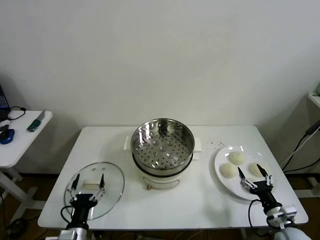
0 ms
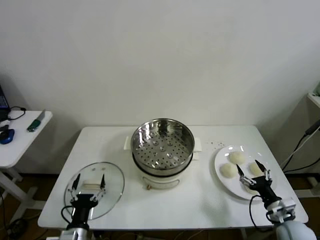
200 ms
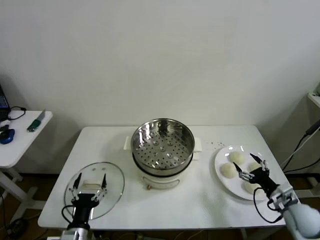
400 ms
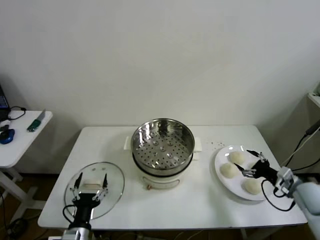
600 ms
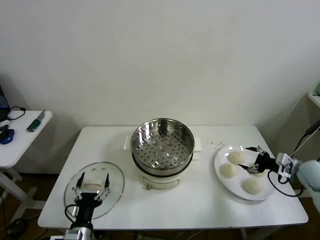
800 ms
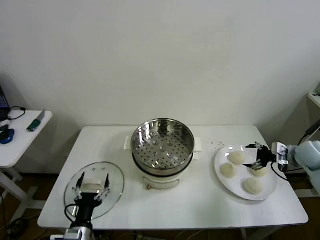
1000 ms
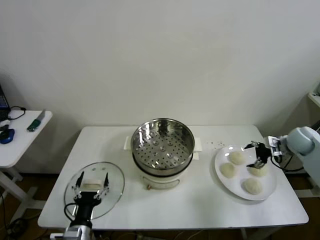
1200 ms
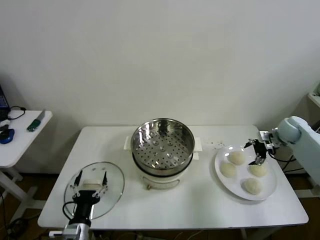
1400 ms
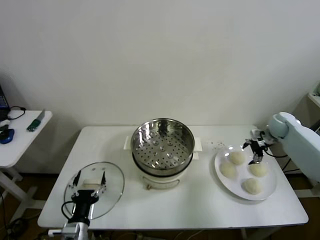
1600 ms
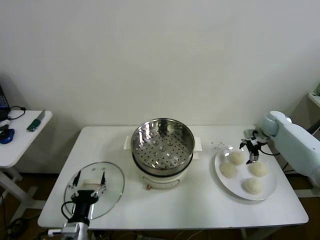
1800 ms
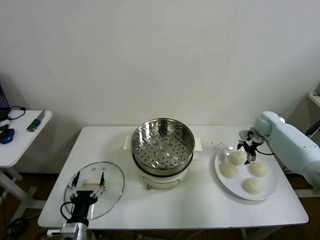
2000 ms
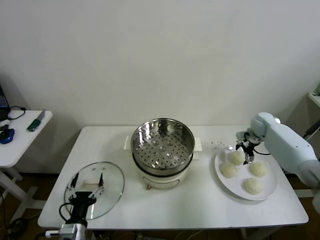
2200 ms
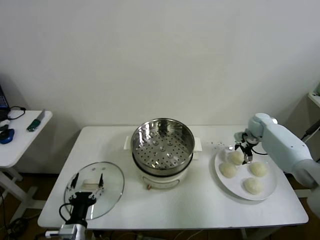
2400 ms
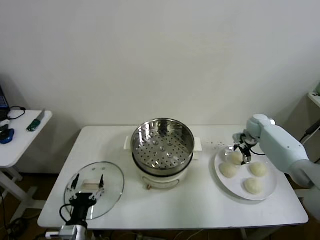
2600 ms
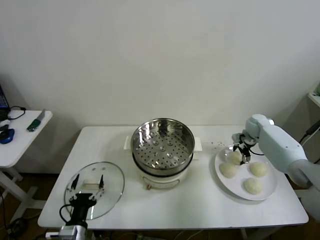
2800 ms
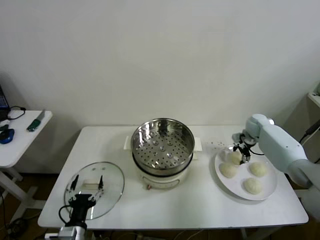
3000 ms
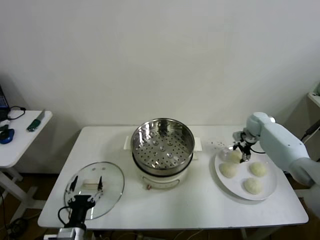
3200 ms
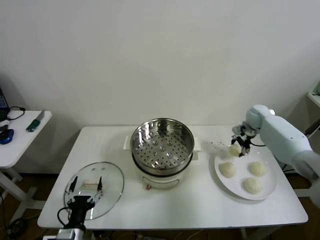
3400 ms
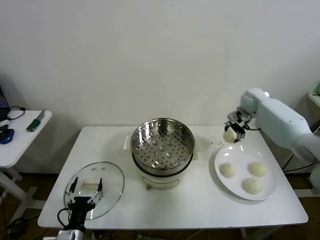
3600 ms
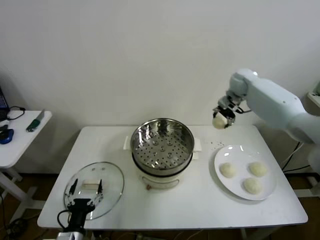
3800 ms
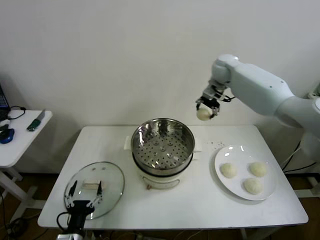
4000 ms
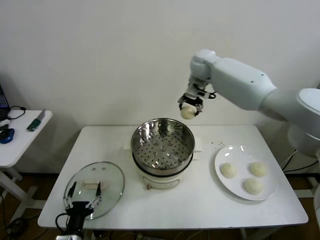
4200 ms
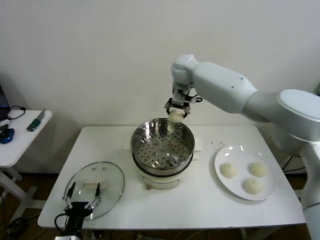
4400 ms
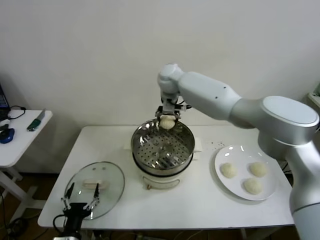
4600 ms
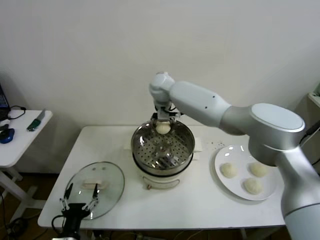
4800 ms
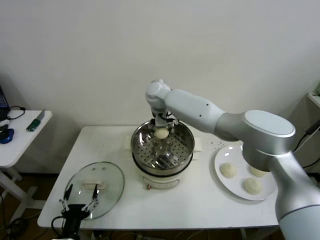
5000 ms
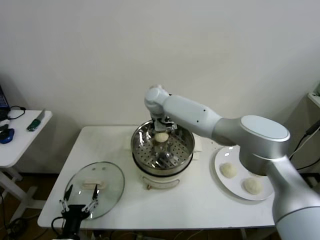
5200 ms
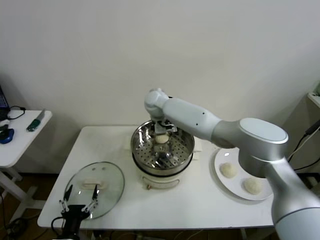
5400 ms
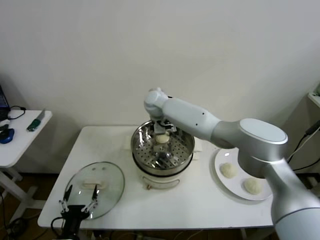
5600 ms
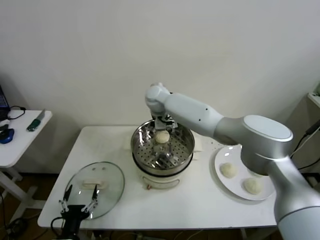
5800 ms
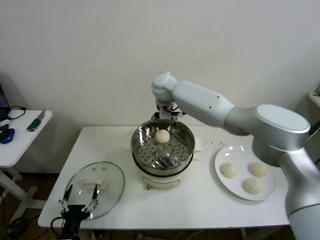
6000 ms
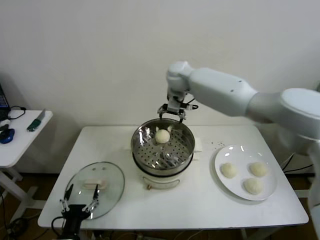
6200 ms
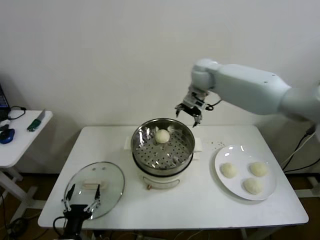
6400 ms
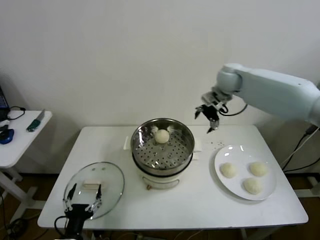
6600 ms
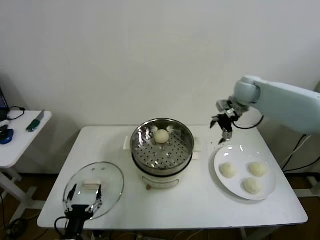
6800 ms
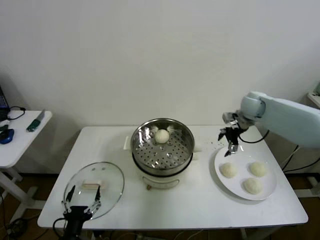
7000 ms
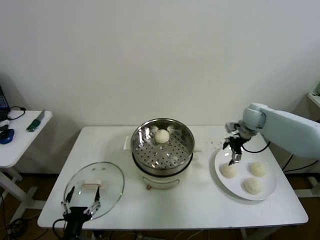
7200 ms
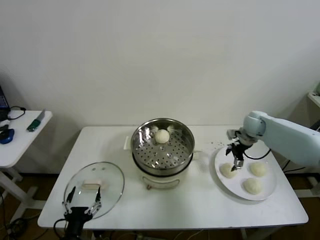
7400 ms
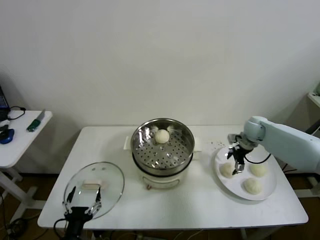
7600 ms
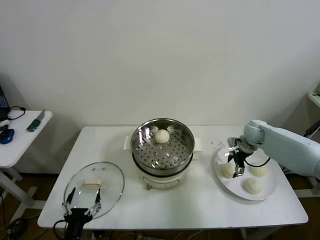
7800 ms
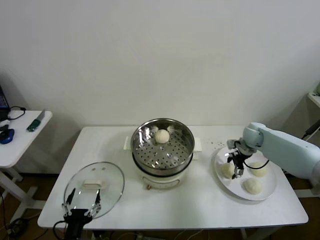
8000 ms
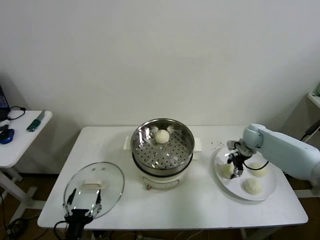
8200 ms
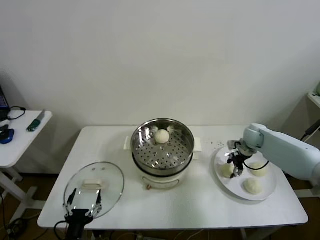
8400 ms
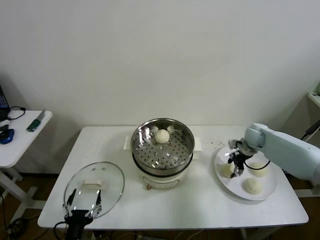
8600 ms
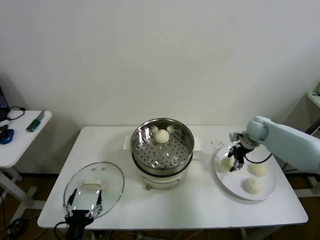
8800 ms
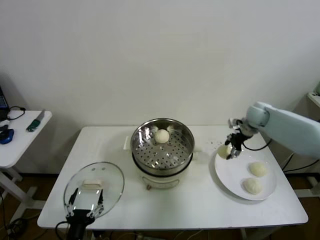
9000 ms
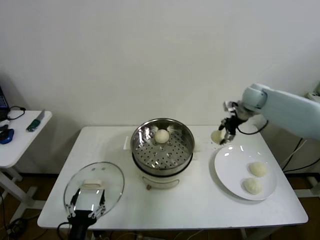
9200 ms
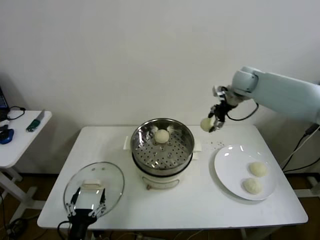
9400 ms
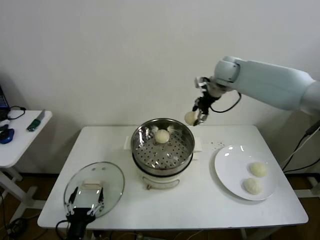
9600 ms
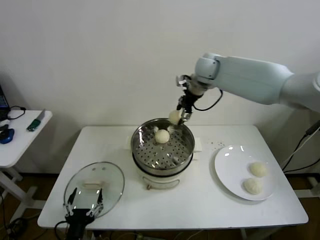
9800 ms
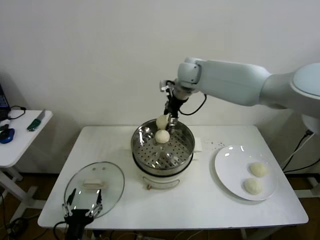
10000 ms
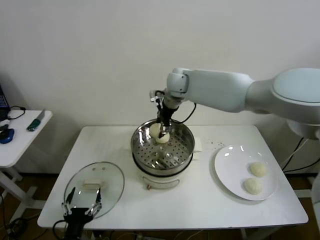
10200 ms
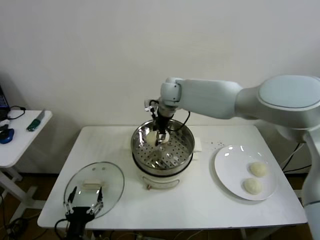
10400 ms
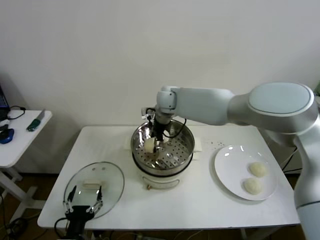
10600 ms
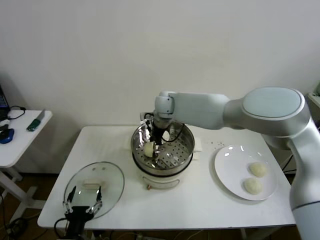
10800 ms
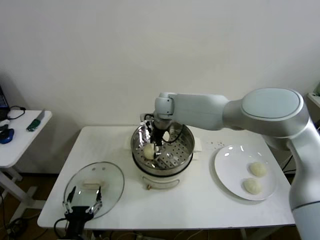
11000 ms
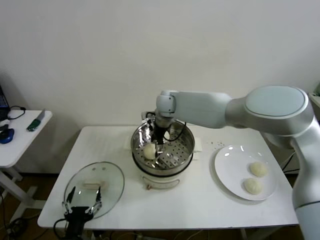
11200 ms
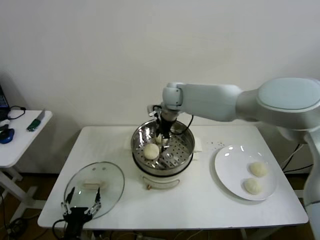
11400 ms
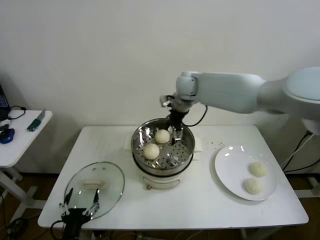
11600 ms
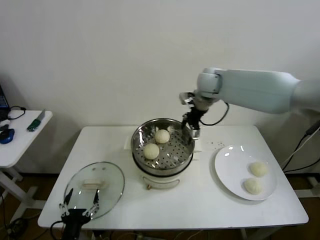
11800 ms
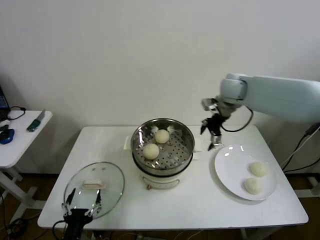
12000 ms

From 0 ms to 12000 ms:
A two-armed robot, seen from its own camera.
Step, from 0 ms to 2600 ms: Grasp the baozi in the plate with right gripper.
Step, from 2800 ms to 5200 ms: Place the baozi on the steamer with right gripper.
Step, from 5400 ms to 8000 ms: Grasp the baozi in the plate with right gripper.
Step, from 8200 ms to 10800 ms: Place the baozi on the steamer with right gripper.
From 1600 ms to 3000 ms: The right gripper ends up some 5 cm from where it was, and closes.
From 3000 ms to 4400 ms: The right gripper moves to the left and upward, some 40 cm.
From 4400 ms to 6000 ms: The right gripper goes downward and returns, roughly 10 cm each way, and opens its fingers.
From 6000 ms to 7600 ms: The right gripper heads to the right and downward, covering roughly 40 cm.
From 7600 ms to 9000 ms: The right gripper travels upward by about 10 cm, and closes.
From 9000 ms to 10400 ms: The right gripper travels to the left by approximately 35 cm.
From 10400 ms to 12000 ms: The right gripper shifts about 20 cm to the right, and opens its fingers.

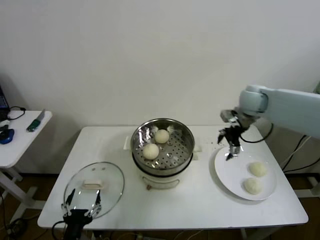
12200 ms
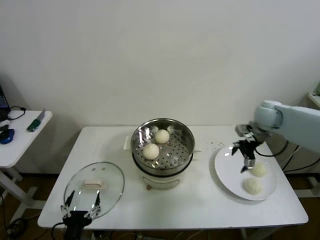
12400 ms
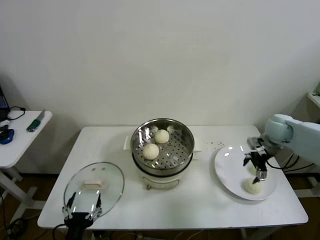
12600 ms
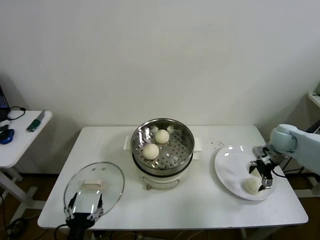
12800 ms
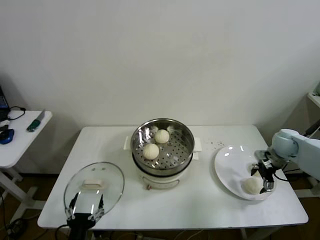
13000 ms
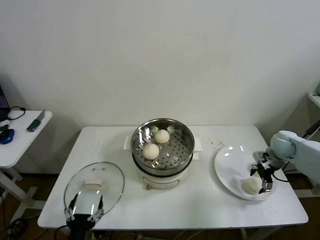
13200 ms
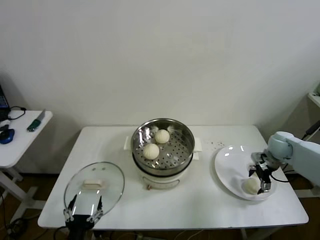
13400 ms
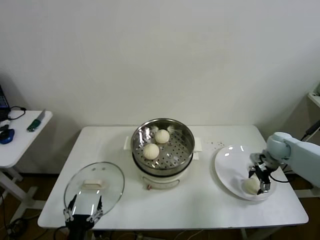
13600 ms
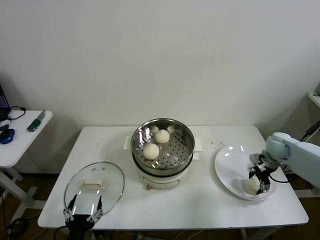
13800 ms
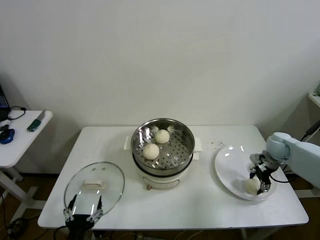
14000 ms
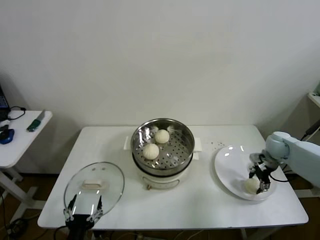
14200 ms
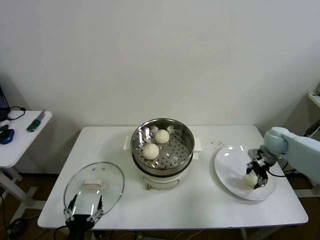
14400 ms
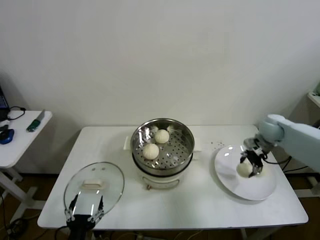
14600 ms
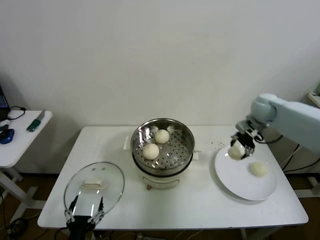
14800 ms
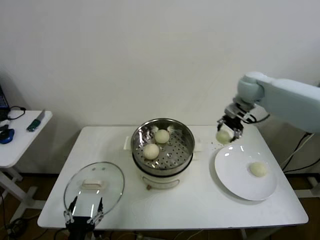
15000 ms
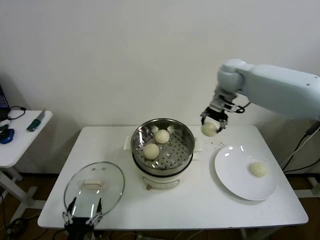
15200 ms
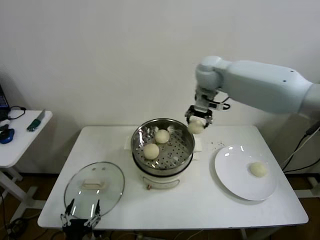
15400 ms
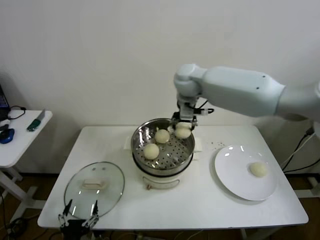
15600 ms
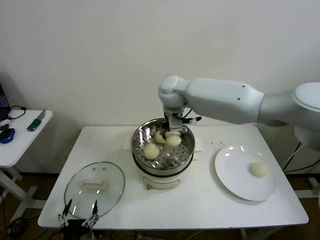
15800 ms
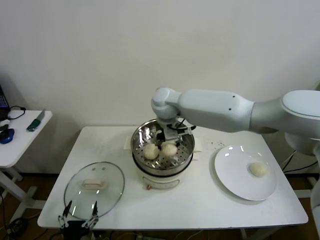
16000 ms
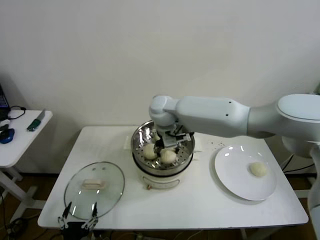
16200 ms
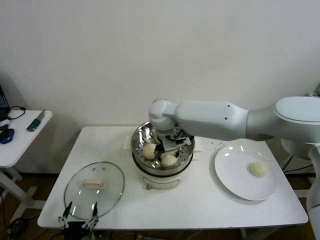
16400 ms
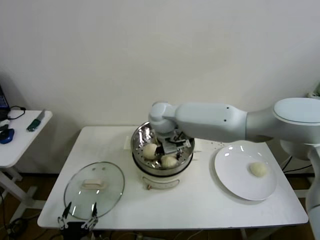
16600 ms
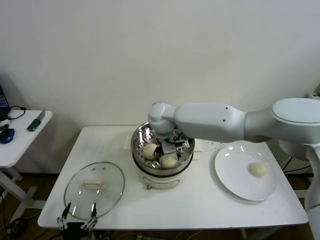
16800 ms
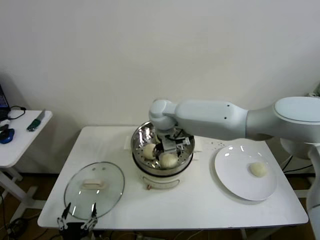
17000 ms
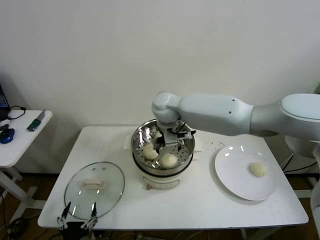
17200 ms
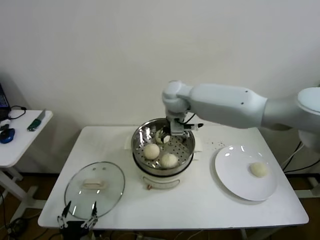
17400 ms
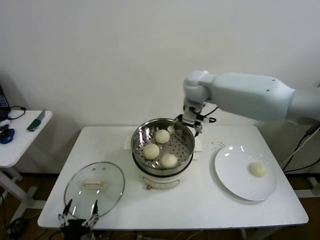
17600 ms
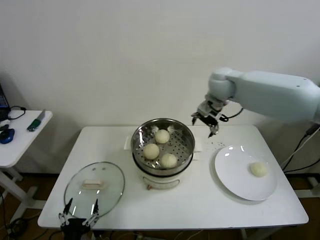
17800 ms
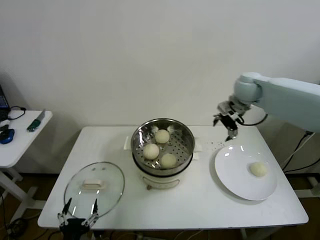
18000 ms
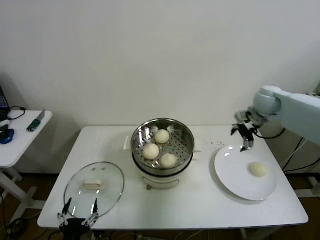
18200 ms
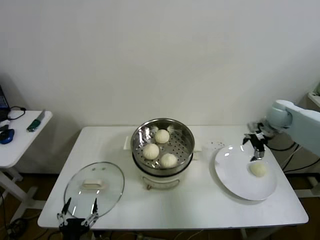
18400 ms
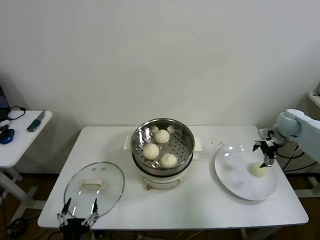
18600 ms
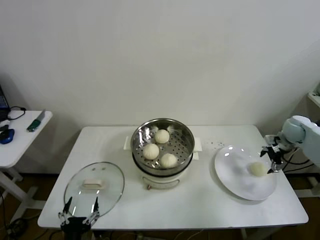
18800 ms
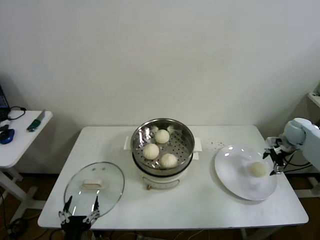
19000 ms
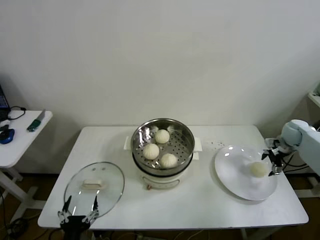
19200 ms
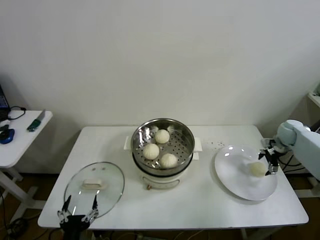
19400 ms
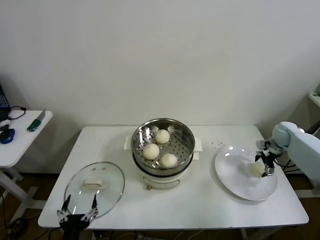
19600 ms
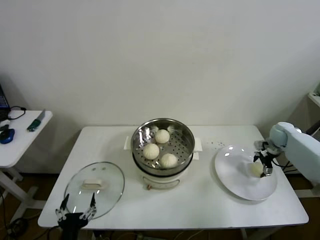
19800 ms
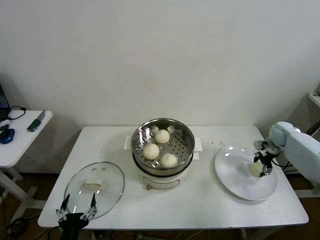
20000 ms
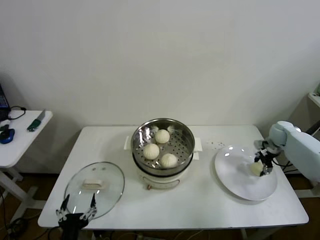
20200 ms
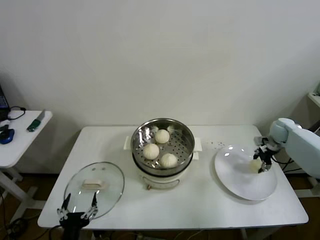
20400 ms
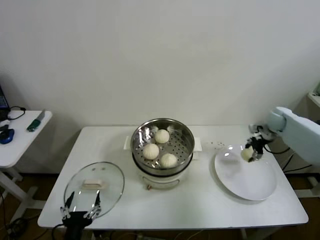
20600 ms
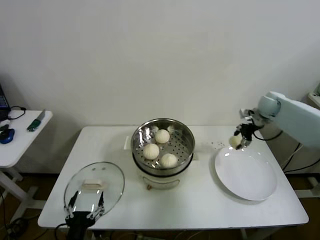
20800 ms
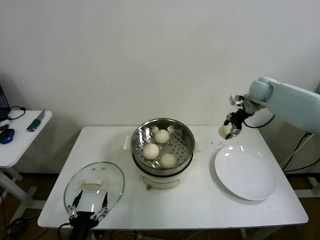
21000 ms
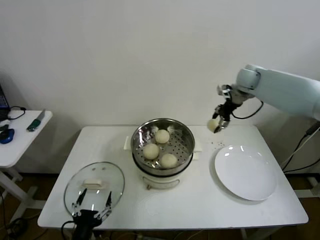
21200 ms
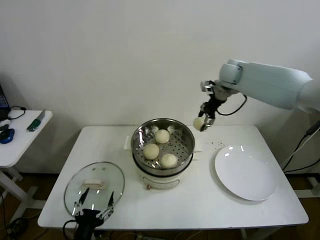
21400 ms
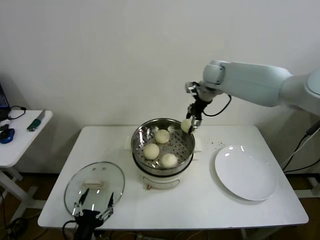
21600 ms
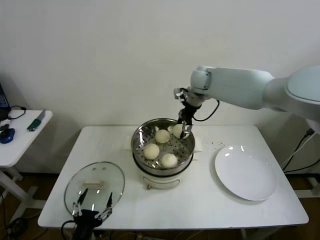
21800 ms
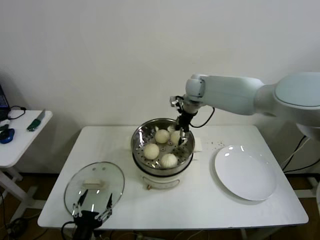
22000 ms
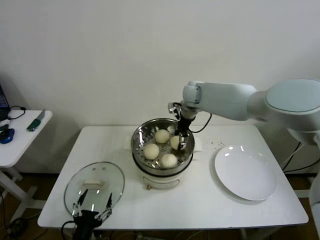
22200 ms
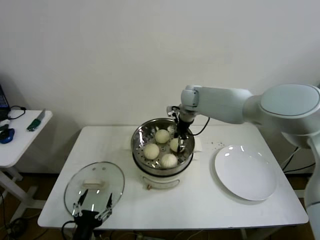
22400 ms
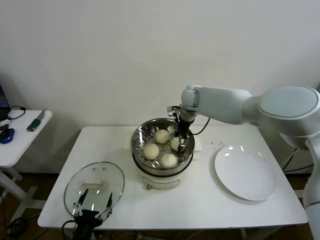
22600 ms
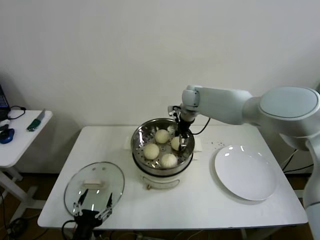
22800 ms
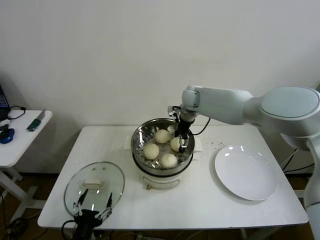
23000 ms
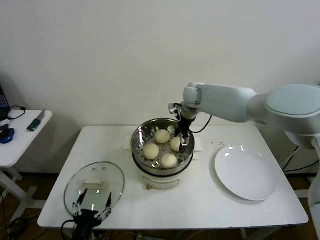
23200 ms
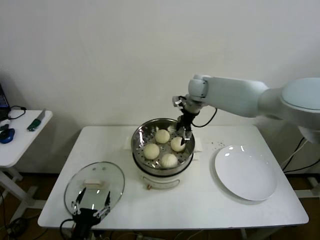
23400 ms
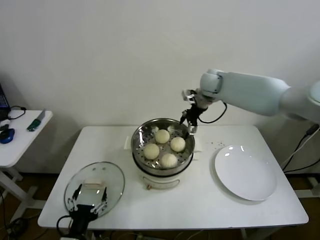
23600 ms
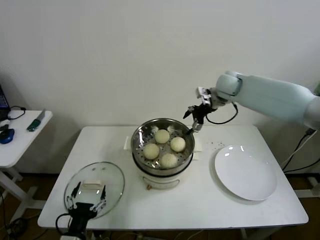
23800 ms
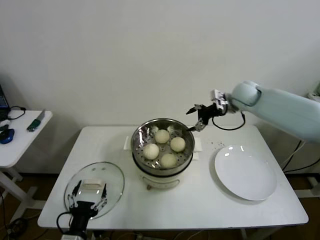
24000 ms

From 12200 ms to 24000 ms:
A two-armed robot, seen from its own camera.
Step, from 12200 ms to 13600 ms: Grasp the baozi in the plate with right gripper.
Step, from 13800 ms to 16600 ms: Place the baozi on the steamer with right gripper.
Step, from 16800 ms to 19800 ms: Grasp the baozi in the plate with right gripper.
Step, from 20000 ms to 22800 ms: Place the baozi on the steamer with right gripper.
From 12200 ms to 13600 ms: The right gripper is displaced downward and to the right by approximately 20 cm.
From 13600 ms to 15200 ms: The right gripper is displaced upward and to the left by roughly 35 cm, and closes.
From 15200 ms to 16600 ms: The right gripper shifts roughly 25 cm to the left and downward.
From 16600 ms to 18200 ms: The right gripper travels to the right by approximately 35 cm, and opens.
From 18200 ms to 19600 ms: The right gripper moves downward and to the right, approximately 20 cm.
From 19600 ms to 21000 ms: The right gripper is displaced upward, to the left and forward by some 25 cm, and closes its fingers.
From 21000 ms to 22600 ms: The right gripper goes approximately 25 cm to the left.
From 22600 ms to 24000 ms: The right gripper goes about 15 cm to the right, and opens up.
